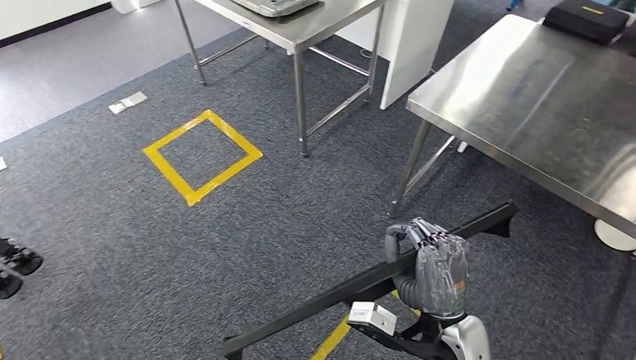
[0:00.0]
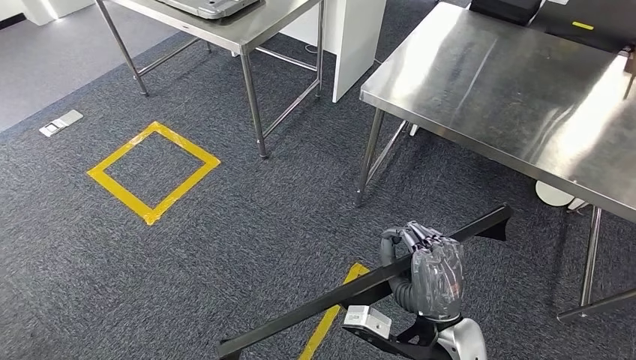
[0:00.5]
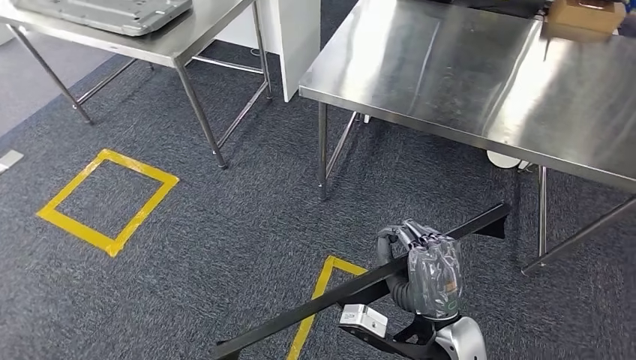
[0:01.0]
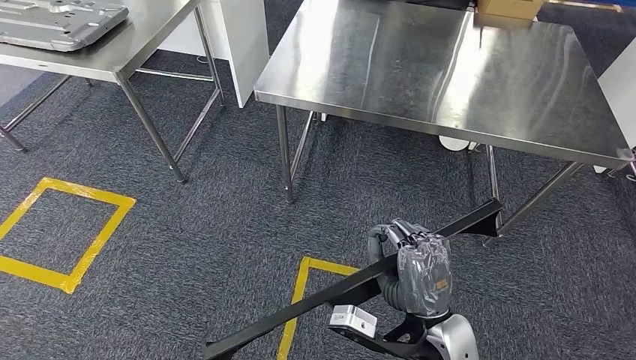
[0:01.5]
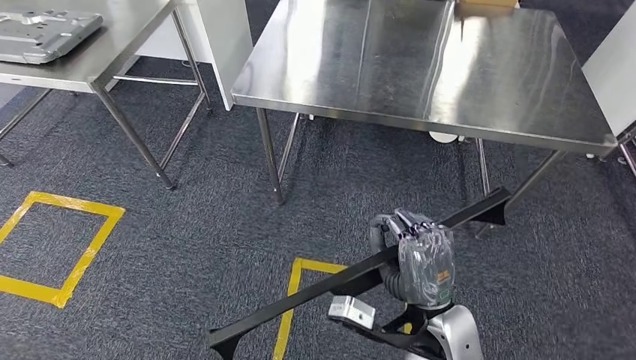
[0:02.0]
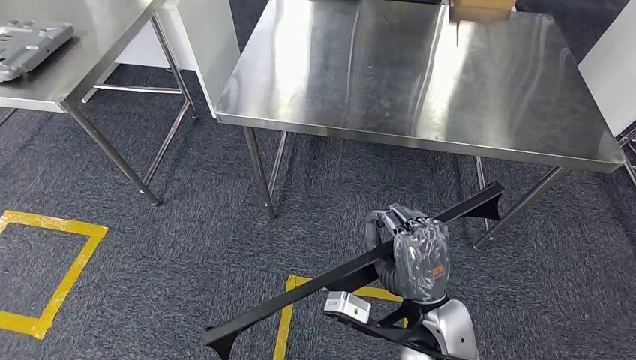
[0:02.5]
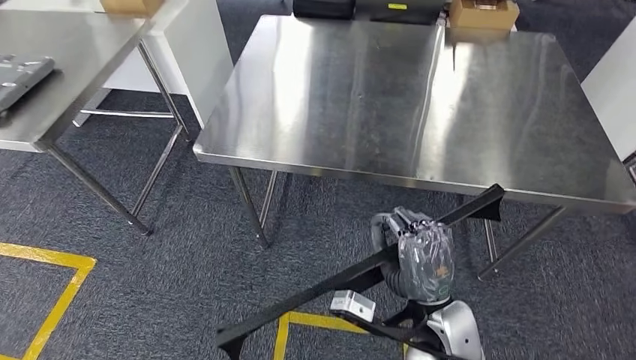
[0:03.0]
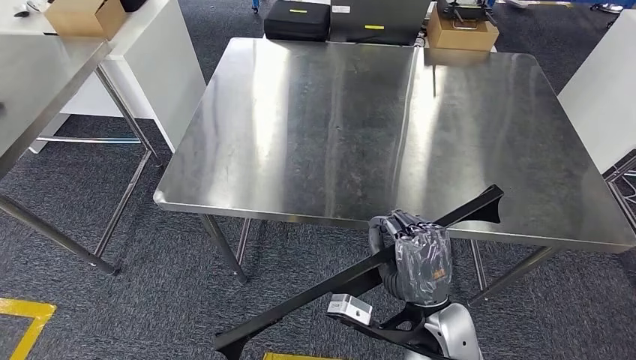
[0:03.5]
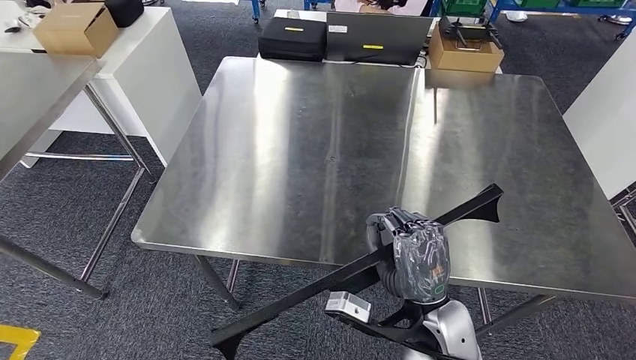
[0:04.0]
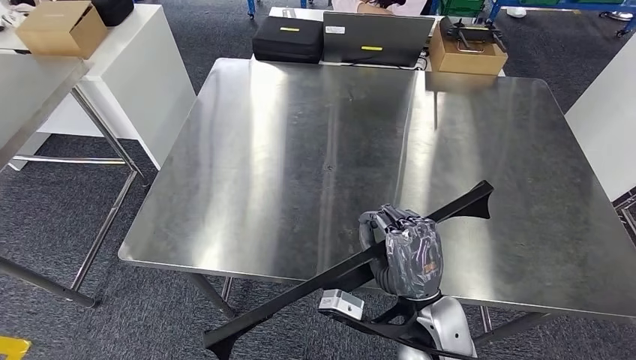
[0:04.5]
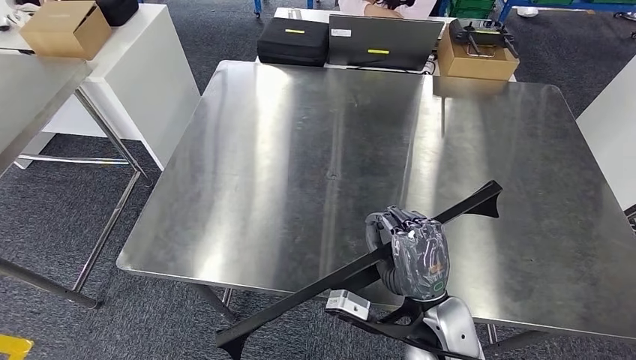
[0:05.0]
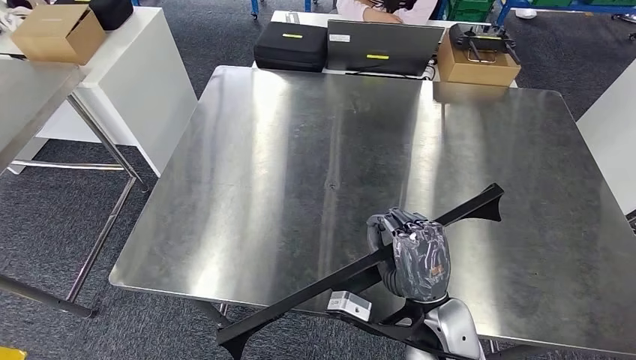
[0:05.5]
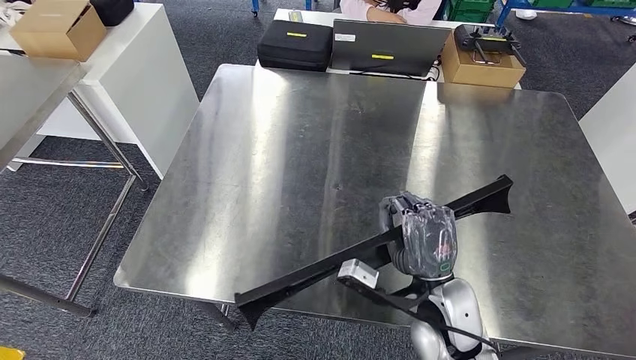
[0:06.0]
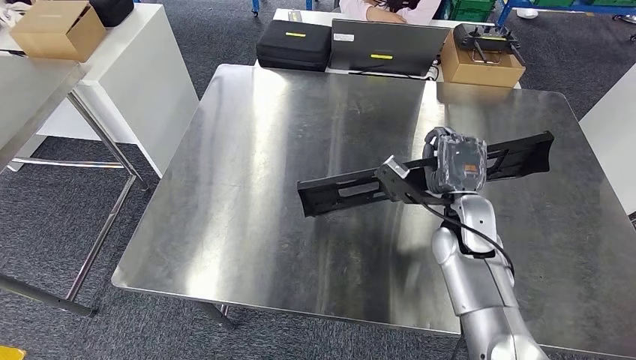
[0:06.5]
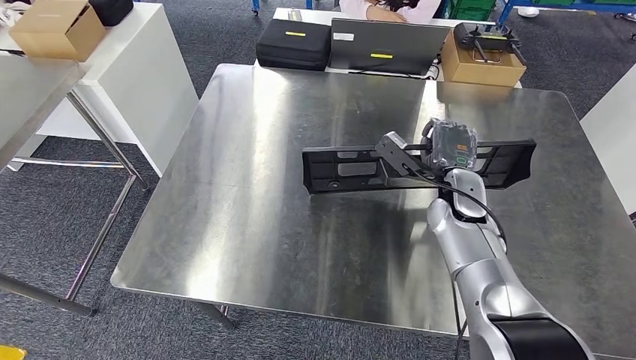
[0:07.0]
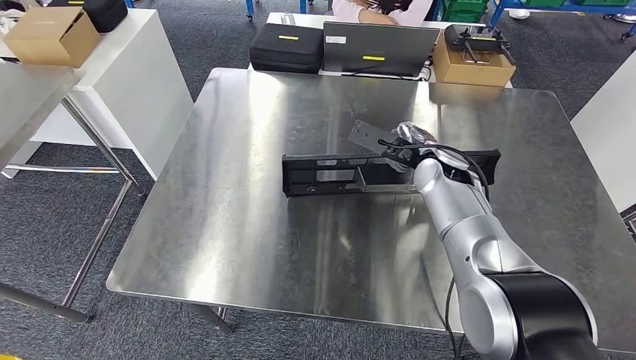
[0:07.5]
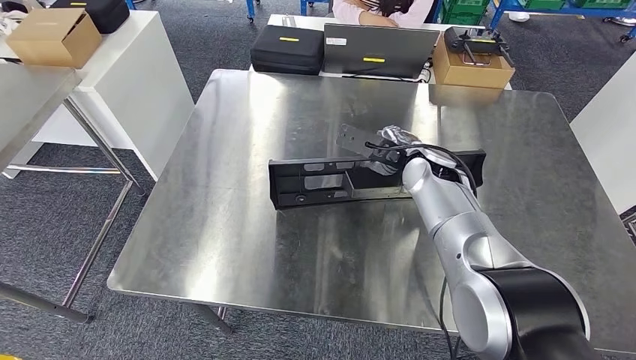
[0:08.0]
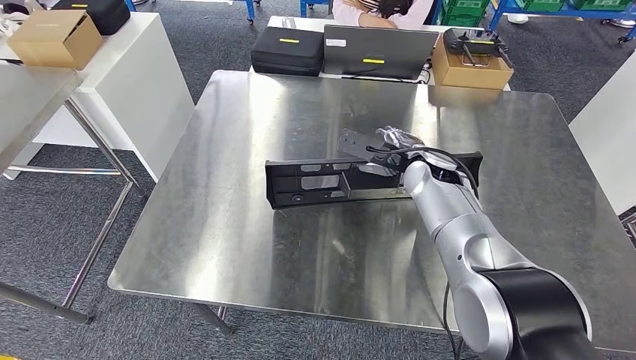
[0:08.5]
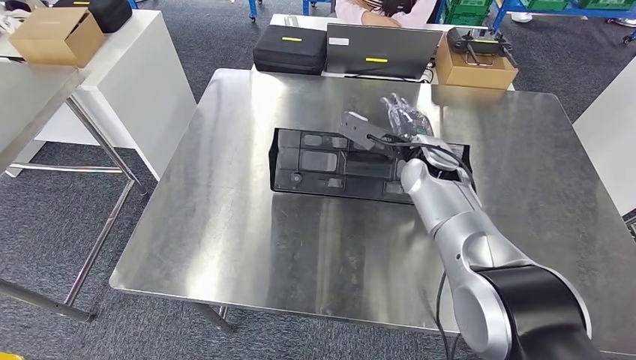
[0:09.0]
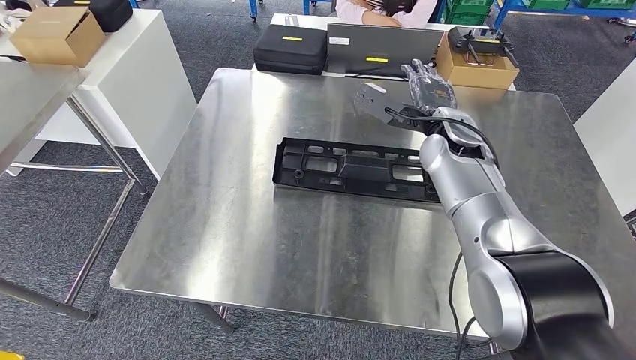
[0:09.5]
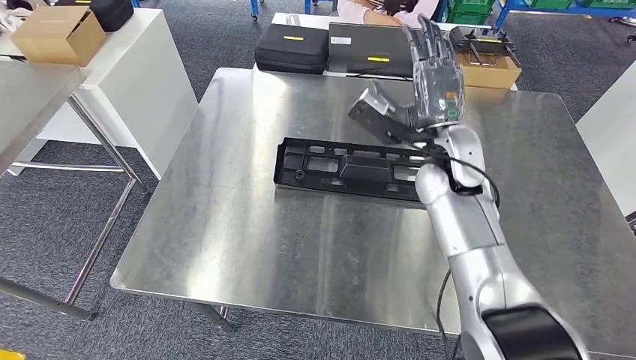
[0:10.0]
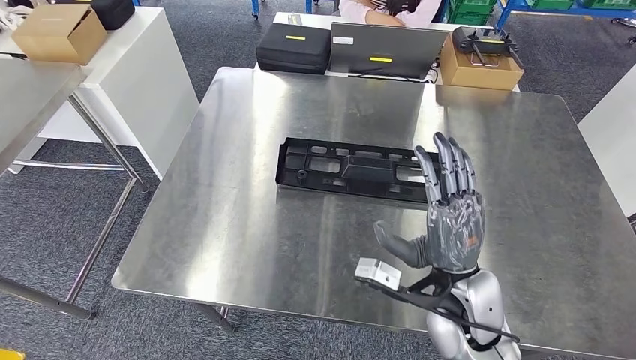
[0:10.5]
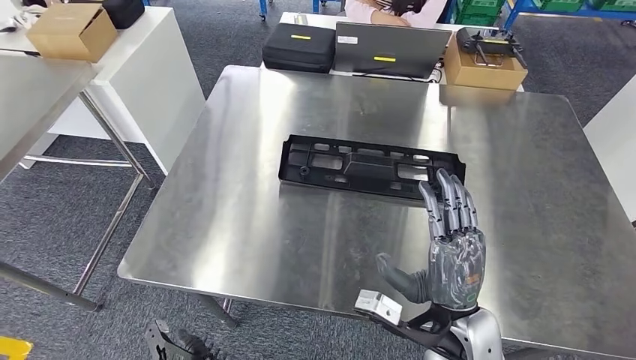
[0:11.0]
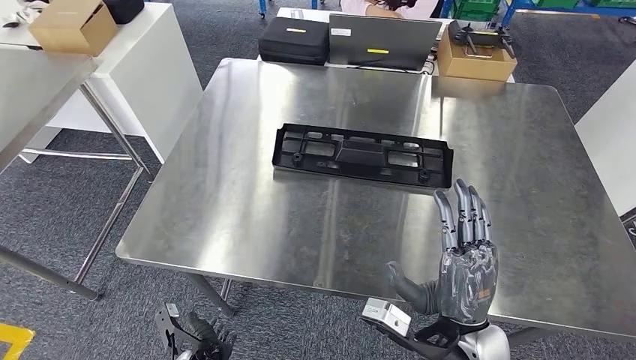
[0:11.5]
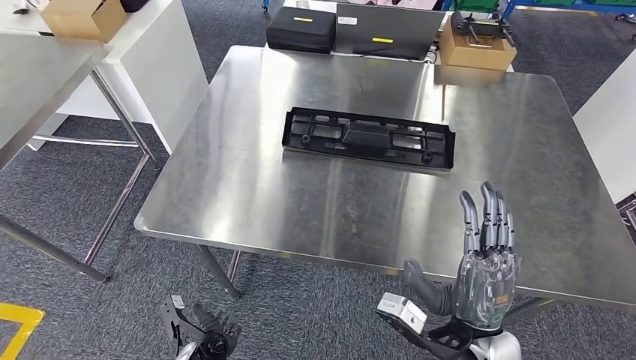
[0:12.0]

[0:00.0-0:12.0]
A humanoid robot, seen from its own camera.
Step, 0:00.0 to 0:03.0: Move the large material to the workbench.
Step, 0:04.0 to 0:11.5: Insert the large material into the corresponding slot on the workbench.

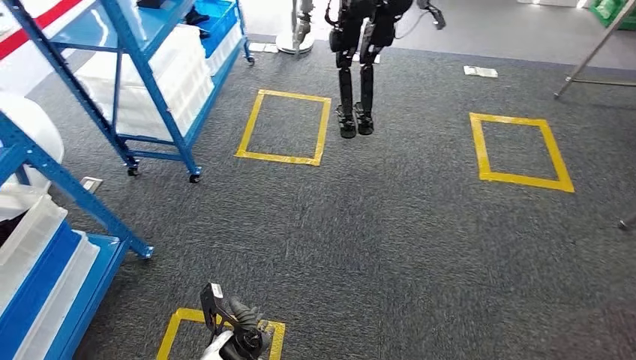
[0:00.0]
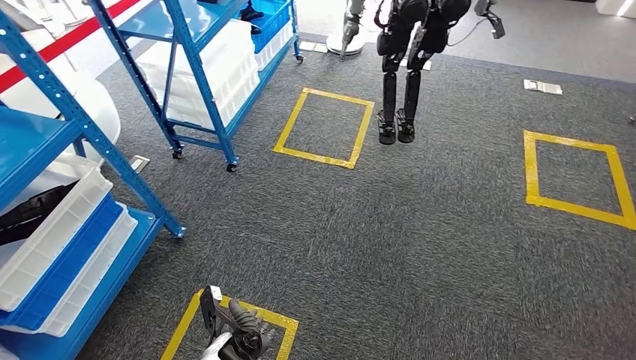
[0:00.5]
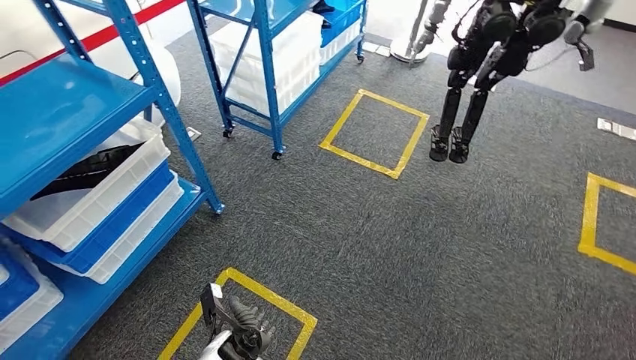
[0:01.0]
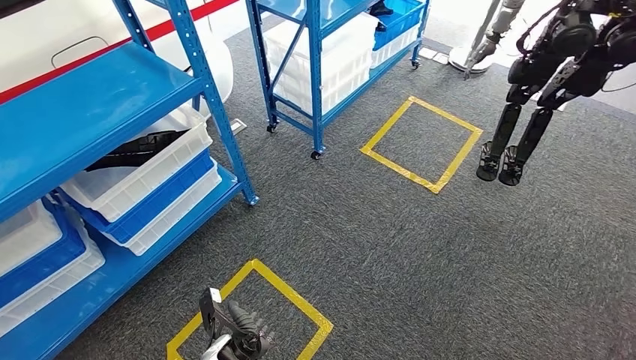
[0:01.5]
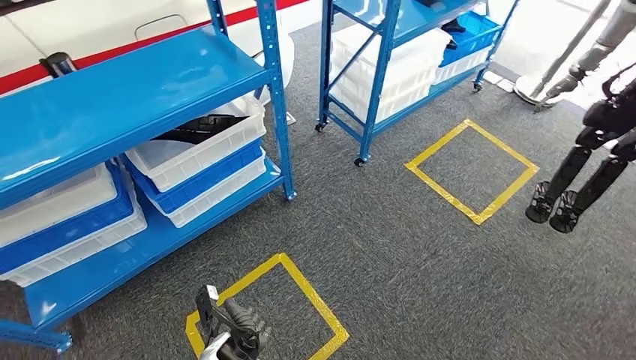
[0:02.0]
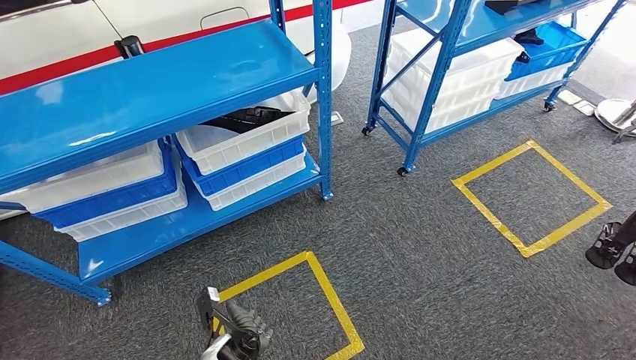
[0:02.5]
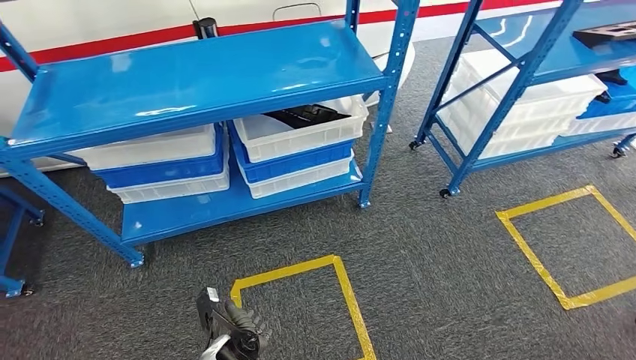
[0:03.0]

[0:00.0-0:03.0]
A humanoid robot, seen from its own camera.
Step, 0:00.0 to 0:03.0: Move to the initial position of the shelf.
